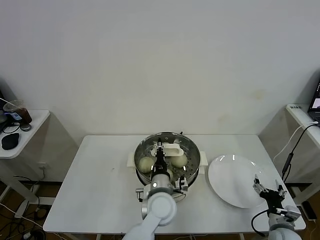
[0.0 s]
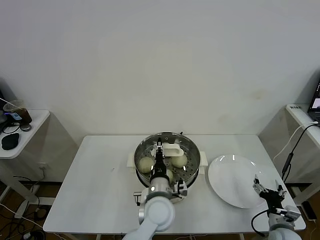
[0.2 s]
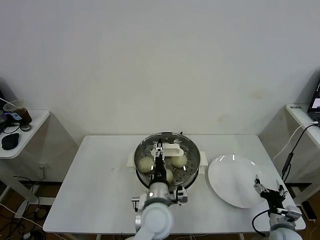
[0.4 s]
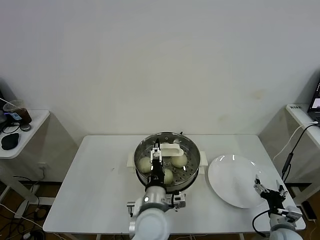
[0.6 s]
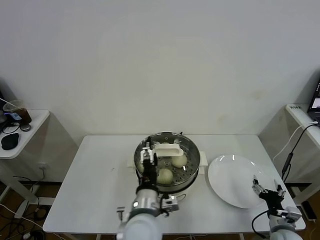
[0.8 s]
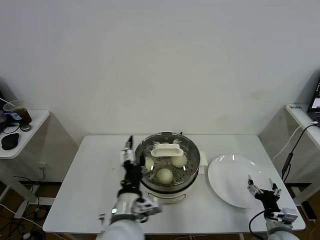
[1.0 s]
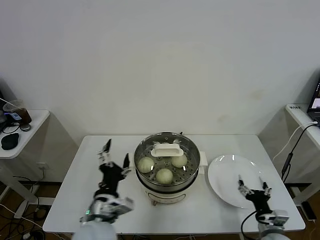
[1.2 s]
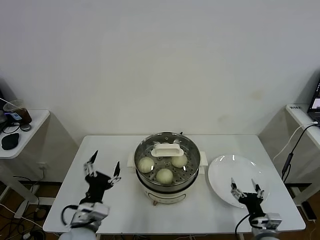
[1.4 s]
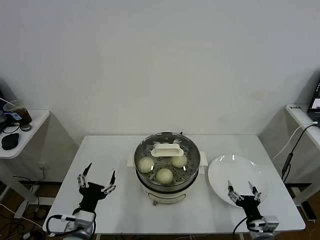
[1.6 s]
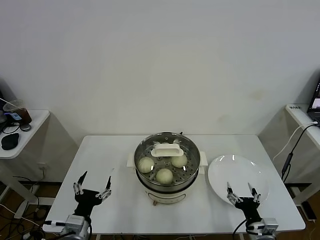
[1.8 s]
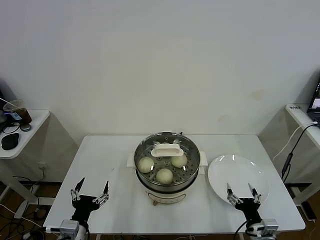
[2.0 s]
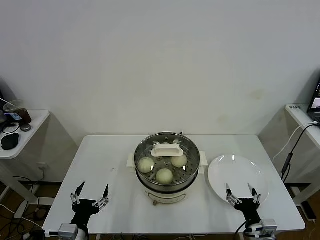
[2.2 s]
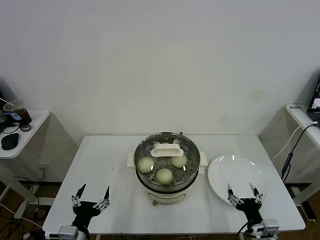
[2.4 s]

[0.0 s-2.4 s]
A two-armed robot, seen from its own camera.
Task of the whole recording: take steamed baozi put them in steamer.
0.0 to 1.2 s: The left gripper goes roughly 20 cm to the left, backward and upward, and opens.
1.2 to 2.4 s: The right gripper is displaced to the left by some 5 cm. The left gripper goes about 20 cm to the left, downward and backward.
